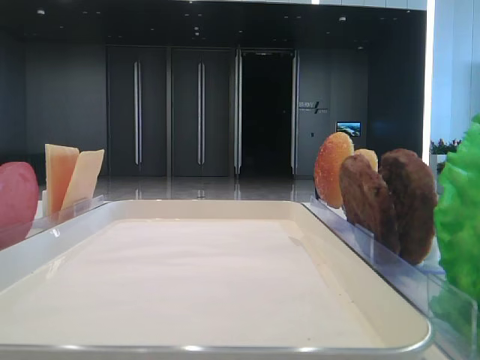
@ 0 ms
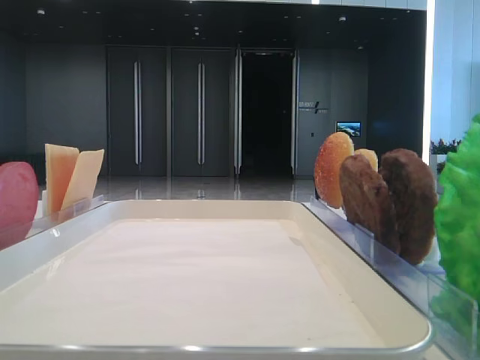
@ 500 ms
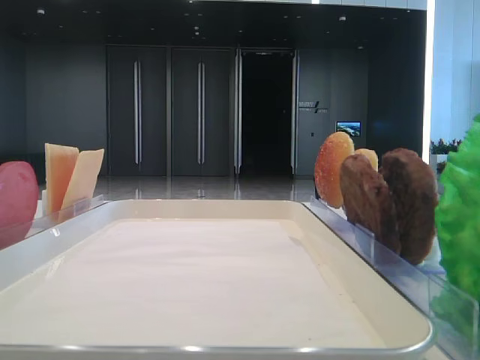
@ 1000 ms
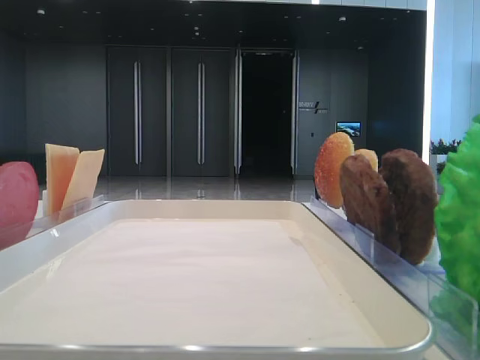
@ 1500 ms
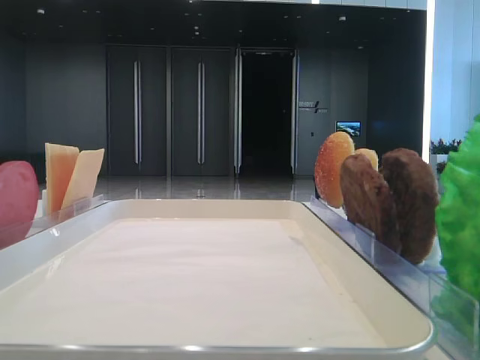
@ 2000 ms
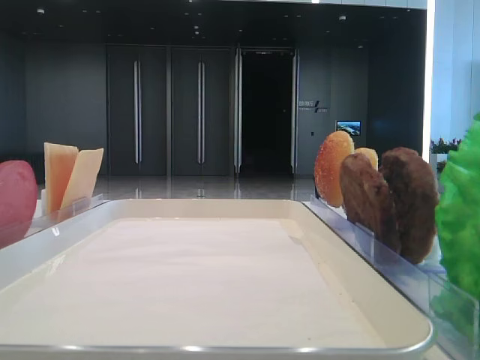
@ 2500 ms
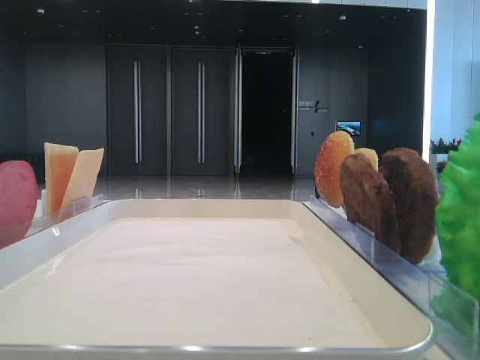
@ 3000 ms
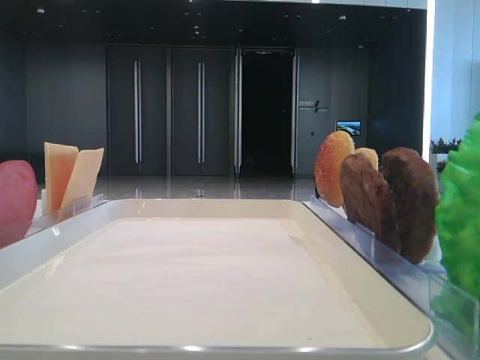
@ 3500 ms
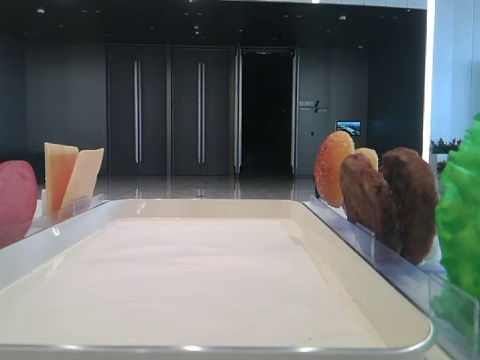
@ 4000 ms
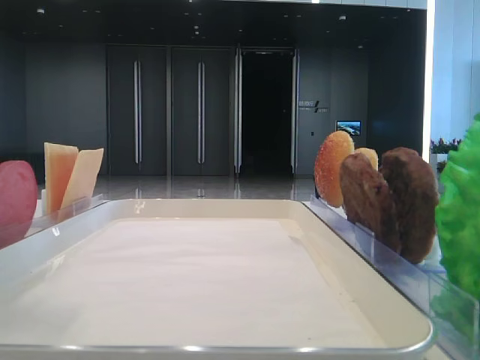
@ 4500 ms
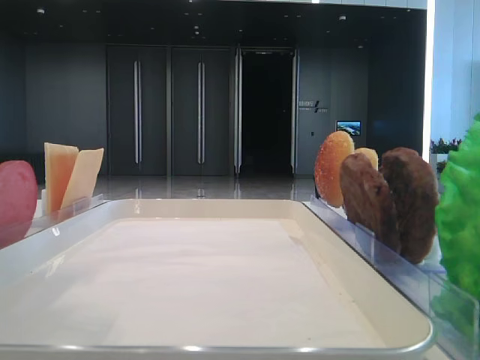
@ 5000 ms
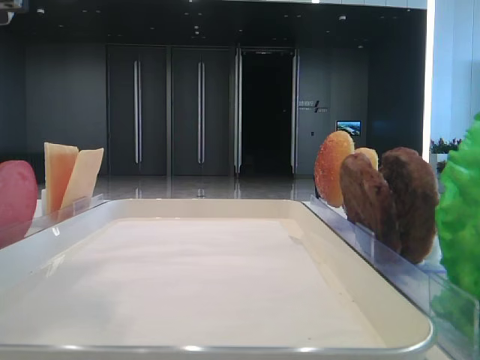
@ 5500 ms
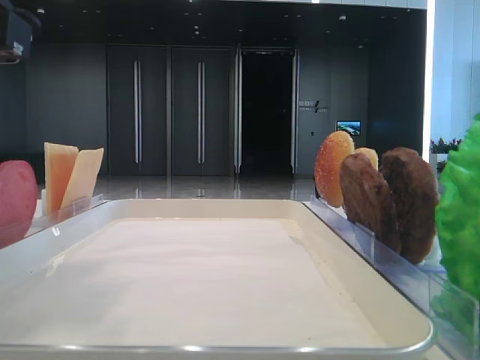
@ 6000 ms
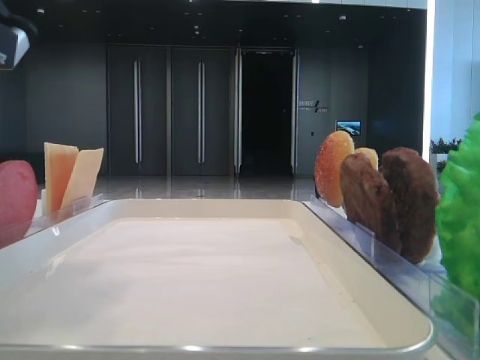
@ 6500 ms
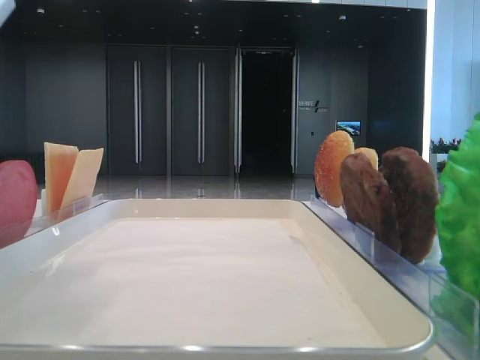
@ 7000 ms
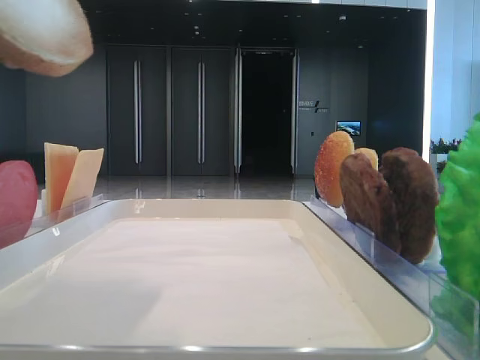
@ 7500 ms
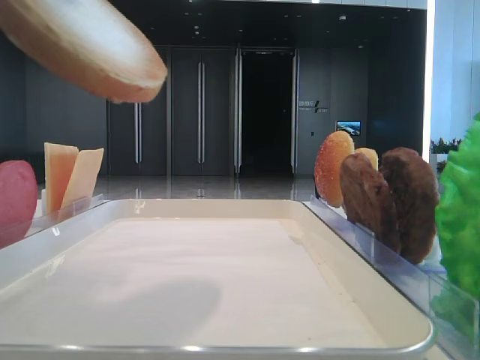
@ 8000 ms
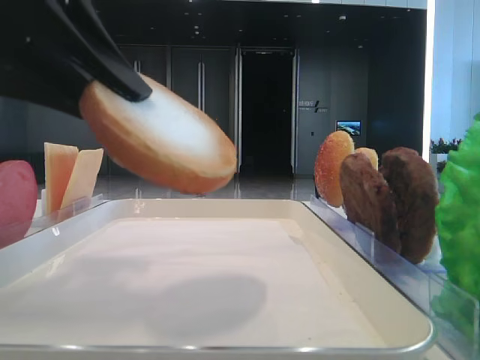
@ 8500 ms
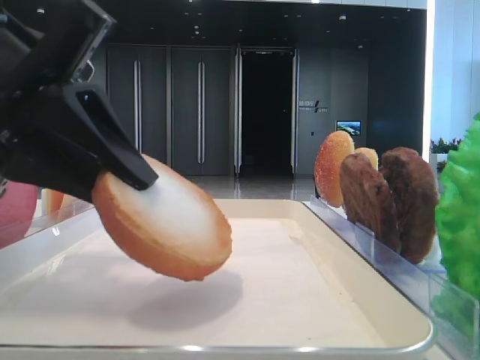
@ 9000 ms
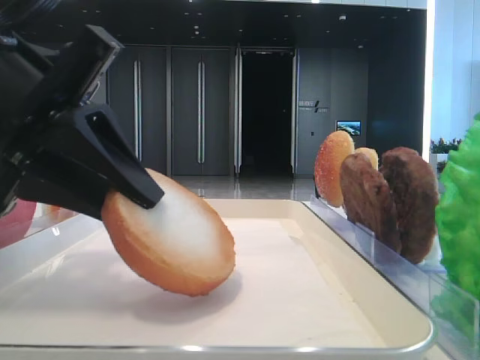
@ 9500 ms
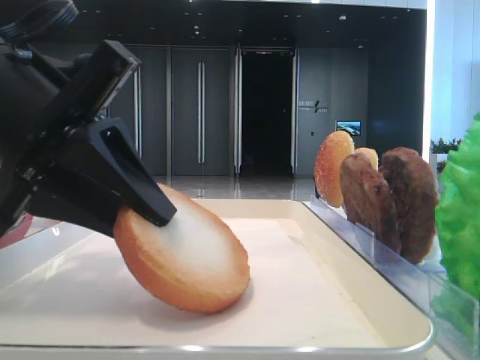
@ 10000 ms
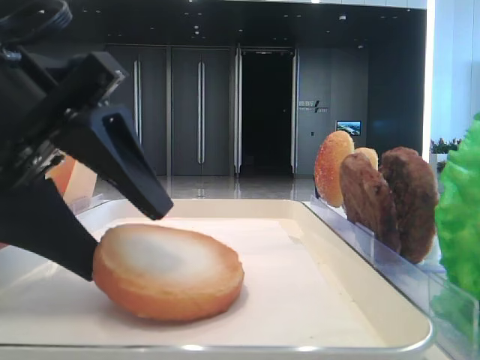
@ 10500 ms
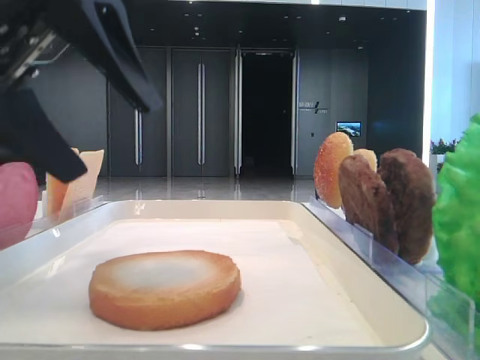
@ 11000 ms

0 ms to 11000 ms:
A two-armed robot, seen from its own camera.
Step, 7000 ms to 10500 ms: Place the bread on the tray with the left hand.
3500 ms to 5500 ms: The left gripper shifts approximately 15 cm to the right.
5500 ms to 7500 ms: The left gripper heads upward, covering some 10 cm, and closes up.
7500 ms to 9000 ms: The left gripper is displaced downward and forward by about 15 cm.
9000 ms to 11000 ms: The left gripper opens up.

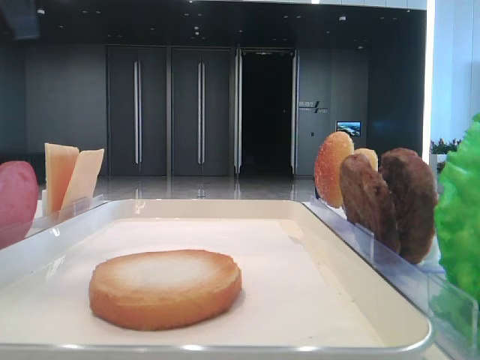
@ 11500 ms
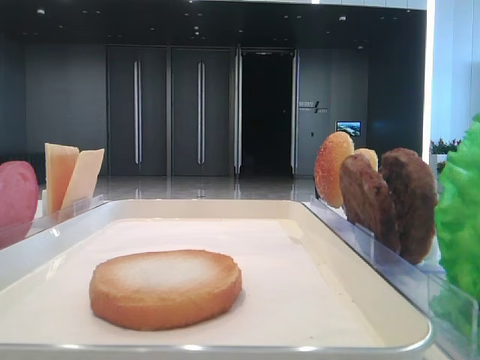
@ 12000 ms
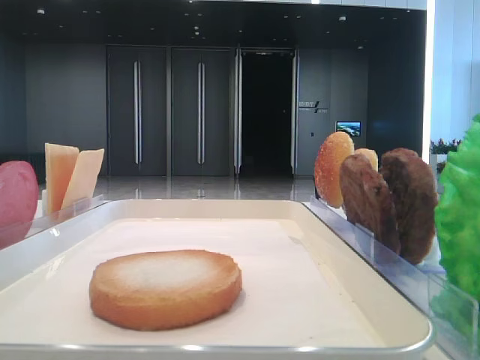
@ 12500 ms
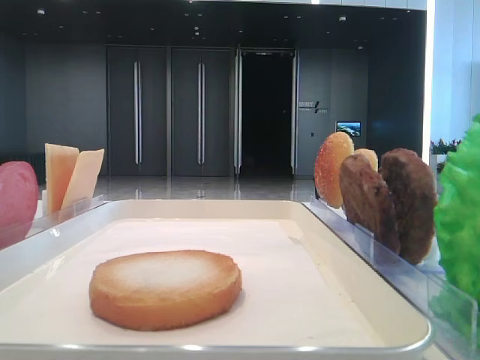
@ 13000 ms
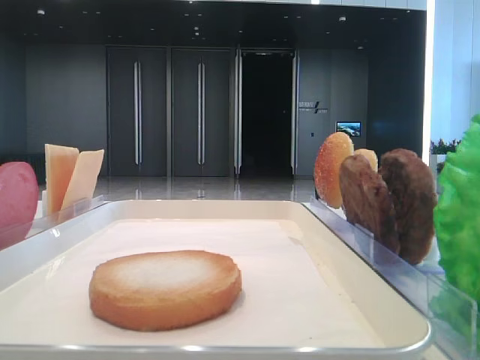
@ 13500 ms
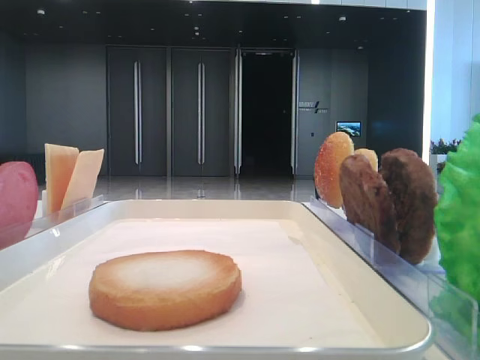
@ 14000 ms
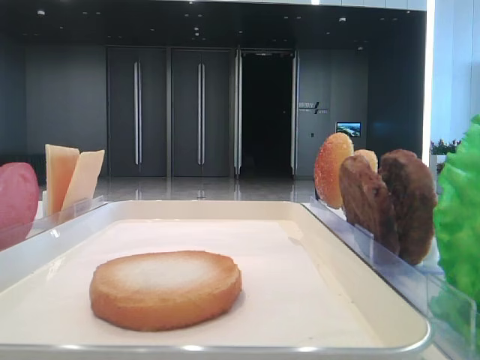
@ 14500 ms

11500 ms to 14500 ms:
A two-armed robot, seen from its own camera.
11500 ms to 13000 ms: The left gripper shifts some 15 cm backward and to the left.

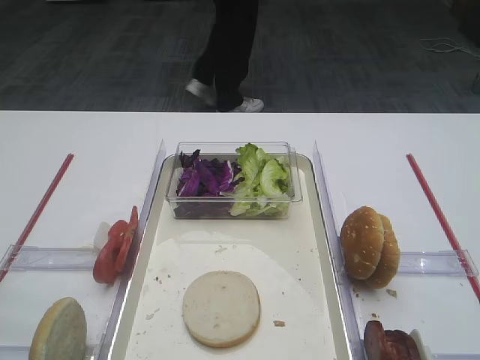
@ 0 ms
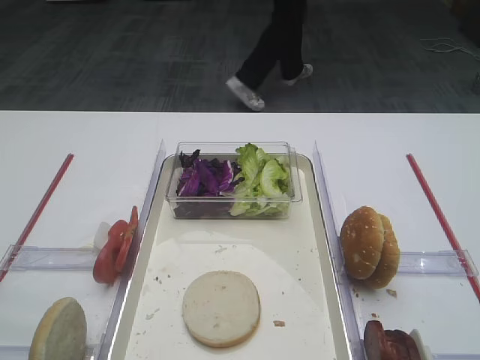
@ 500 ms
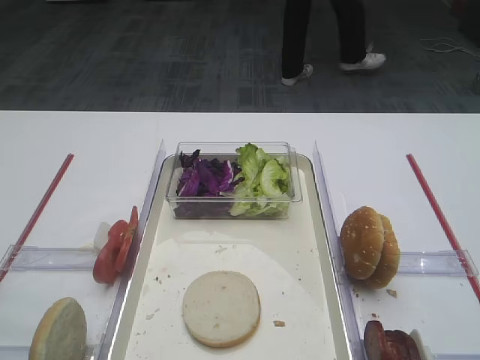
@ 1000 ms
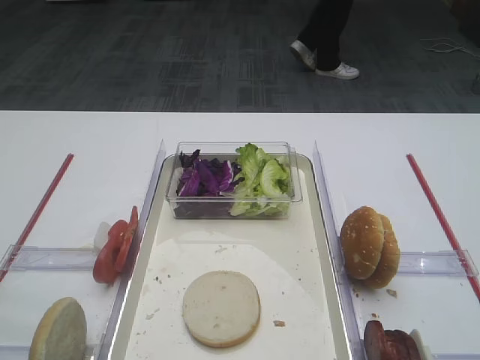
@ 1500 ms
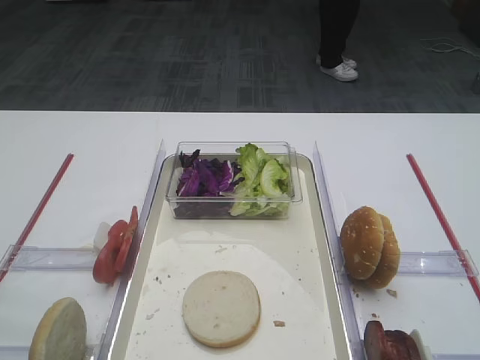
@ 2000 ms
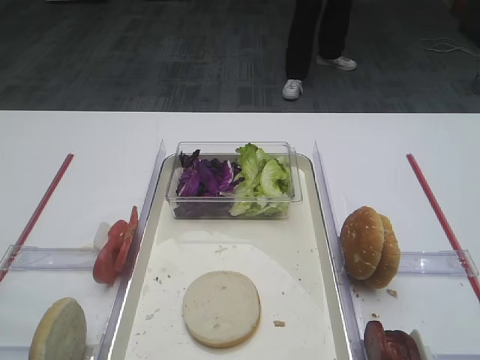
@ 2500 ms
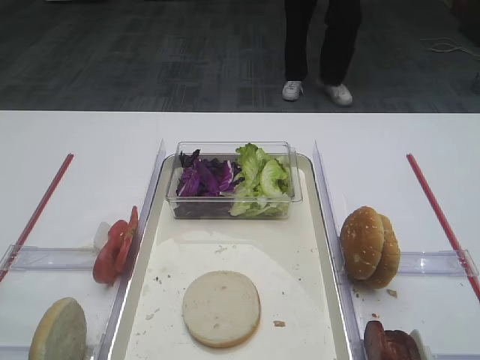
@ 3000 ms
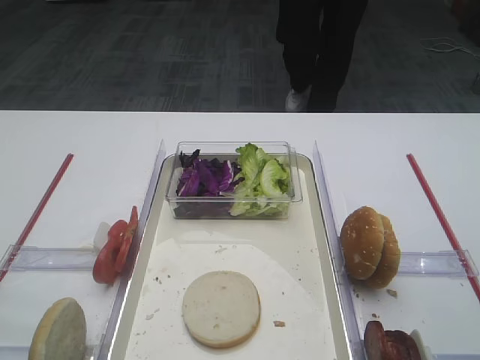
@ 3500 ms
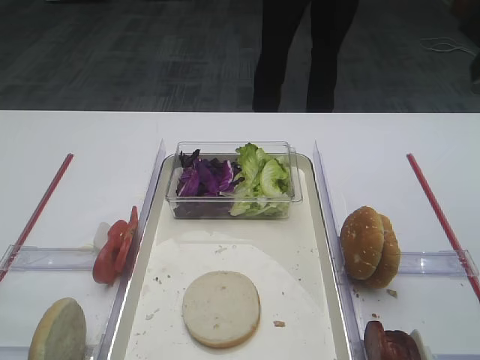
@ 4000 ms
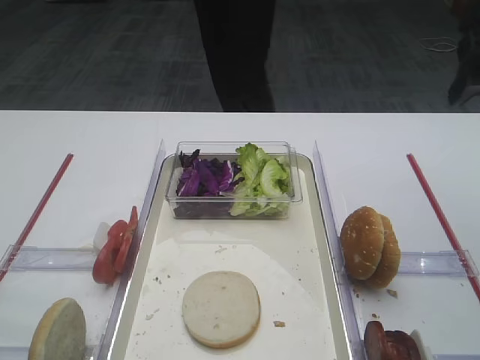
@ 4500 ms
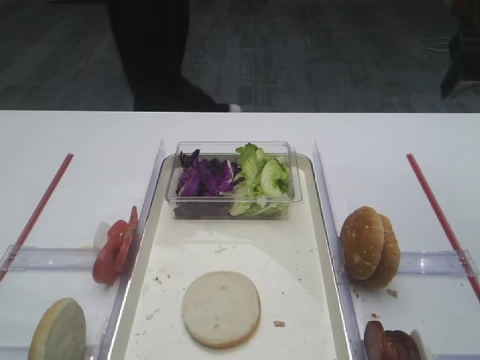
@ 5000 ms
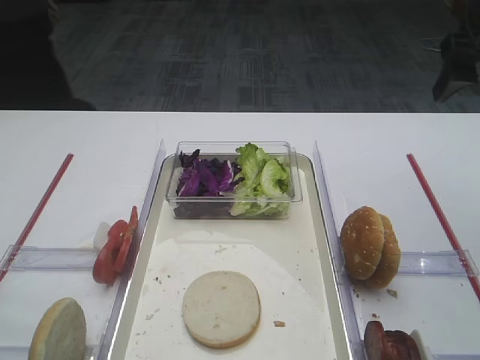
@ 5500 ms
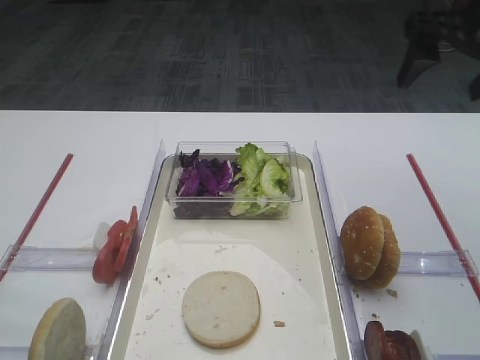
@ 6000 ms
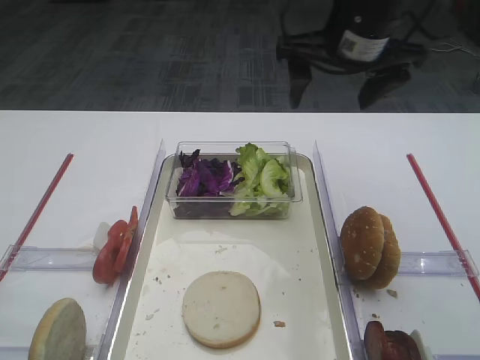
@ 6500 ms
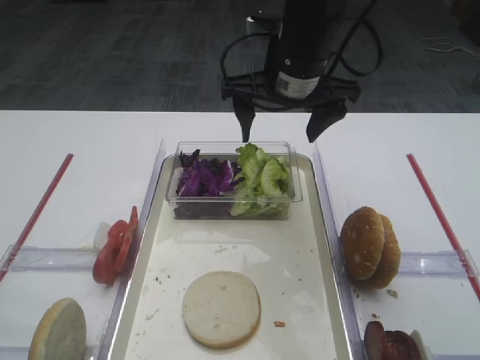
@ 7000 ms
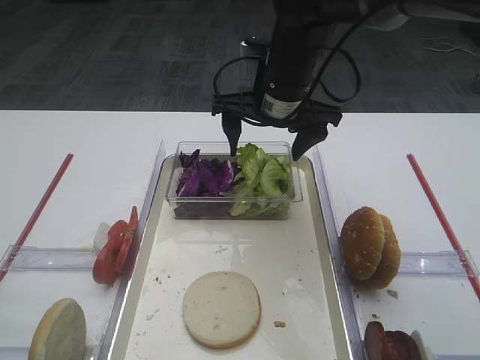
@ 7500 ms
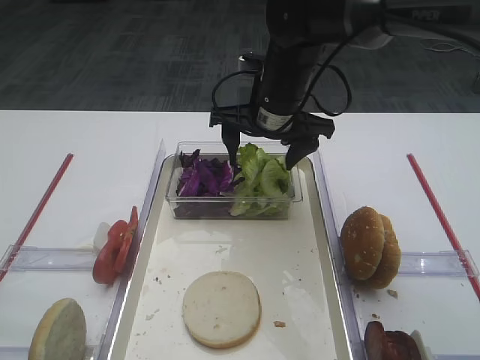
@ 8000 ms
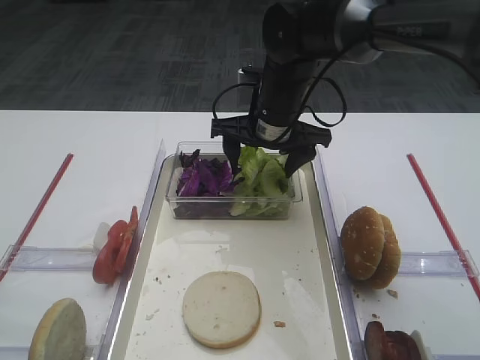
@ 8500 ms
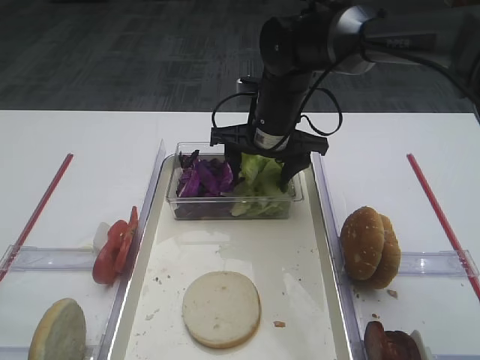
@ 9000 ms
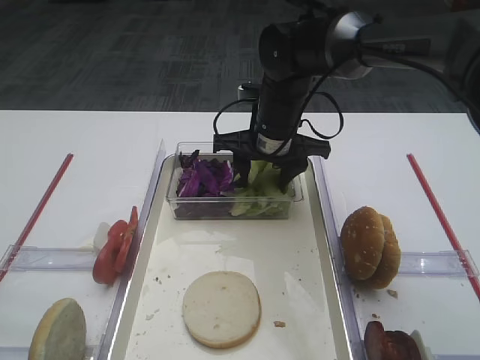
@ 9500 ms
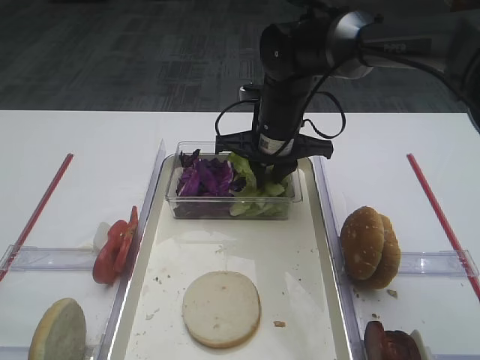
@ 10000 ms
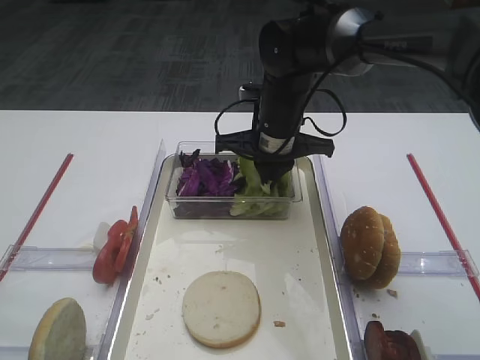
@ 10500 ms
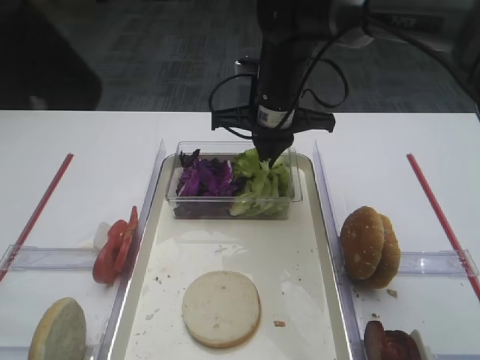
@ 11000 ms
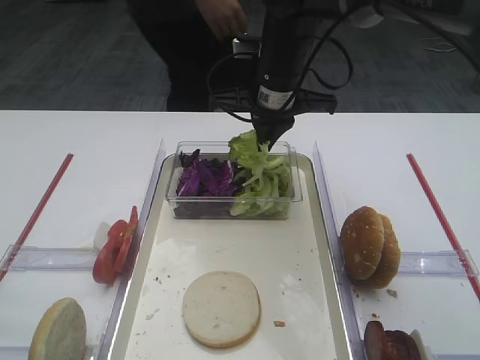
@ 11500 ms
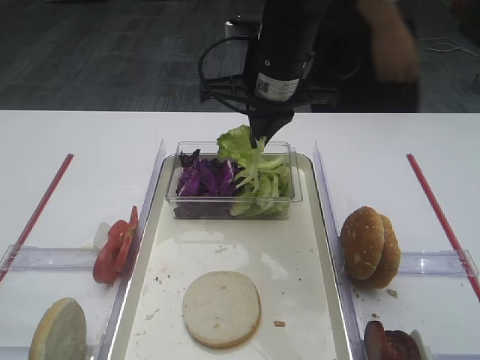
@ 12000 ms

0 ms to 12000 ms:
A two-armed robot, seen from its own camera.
Step, 0 ms to 11500 ms: Pick up the lettuce leaf with the right gripper.
2000 ms to 4000 ms: The right gripper heads forward, covering some 25 cm, and opens its fingers.
4000 ms to 6000 ms: The right gripper travels forward by roughly 10 cm.
6000 ms to 8000 ms: The right gripper is displaced to the left and downward by roughly 25 cm.
8000 ms to 10000 ms: The right gripper closes its fingers.
10000 ms to 12000 ms: The right gripper heads upward, covering roughly 10 cm.
